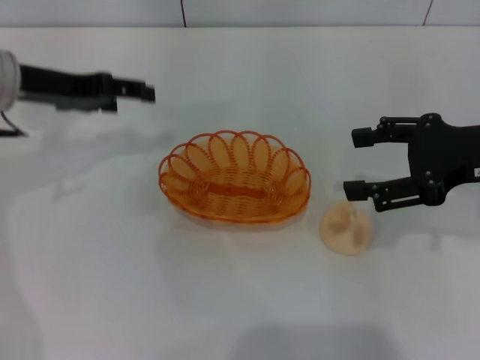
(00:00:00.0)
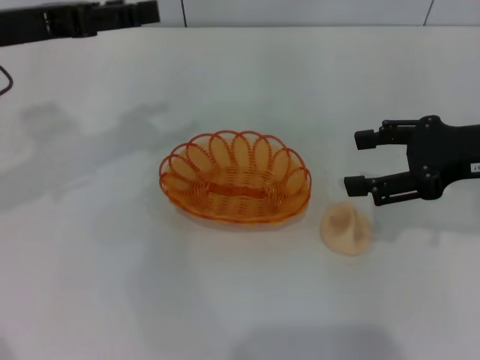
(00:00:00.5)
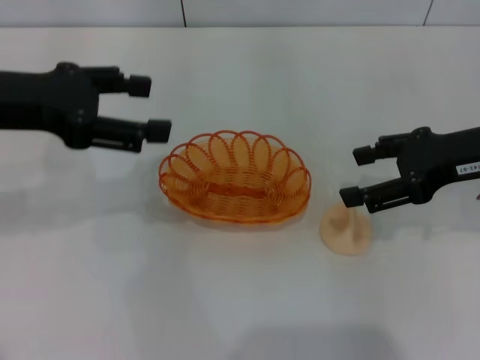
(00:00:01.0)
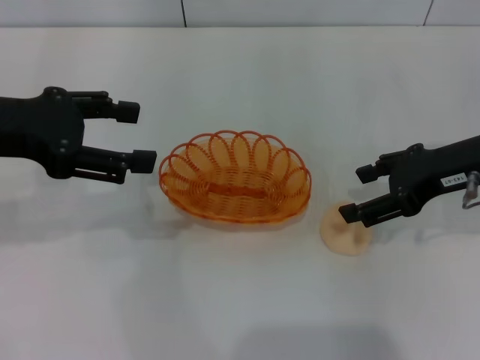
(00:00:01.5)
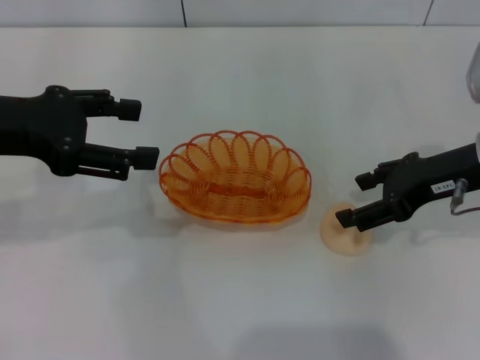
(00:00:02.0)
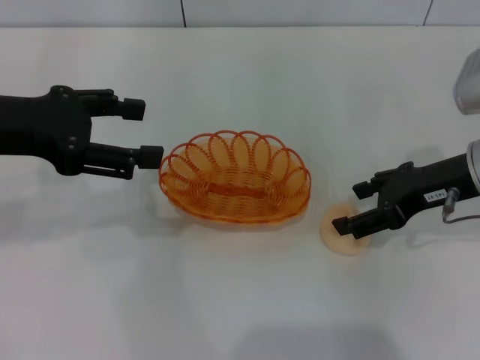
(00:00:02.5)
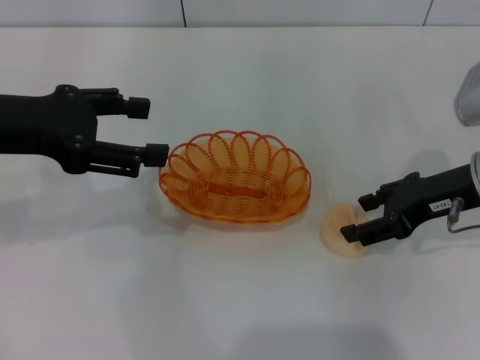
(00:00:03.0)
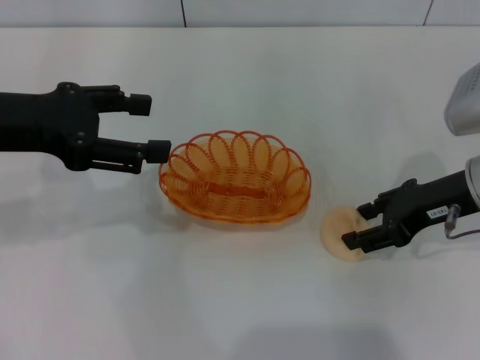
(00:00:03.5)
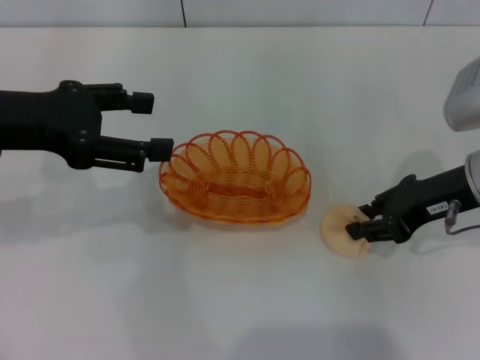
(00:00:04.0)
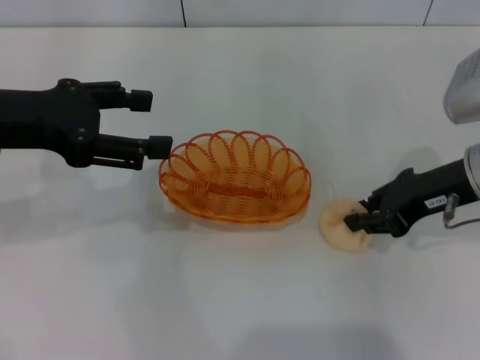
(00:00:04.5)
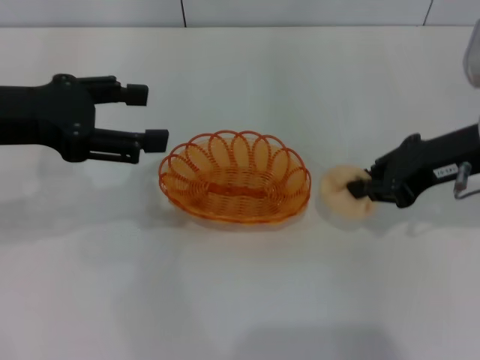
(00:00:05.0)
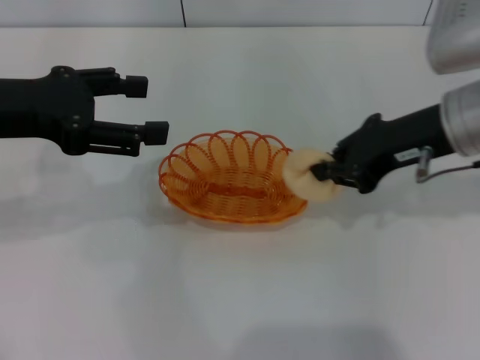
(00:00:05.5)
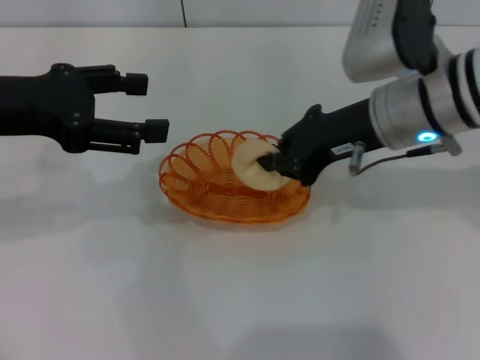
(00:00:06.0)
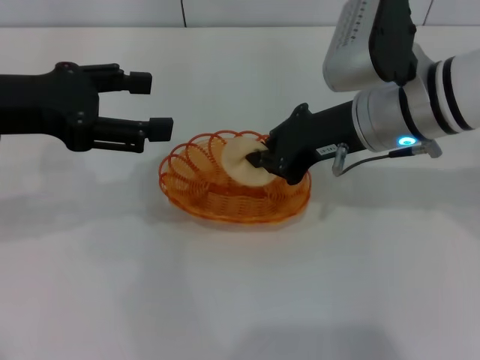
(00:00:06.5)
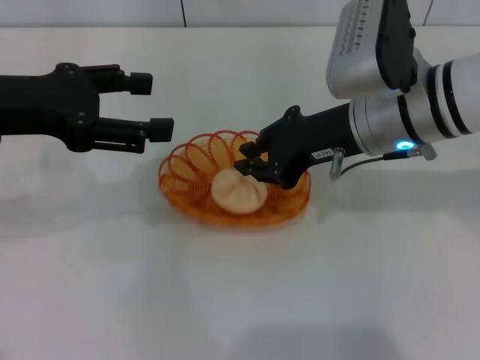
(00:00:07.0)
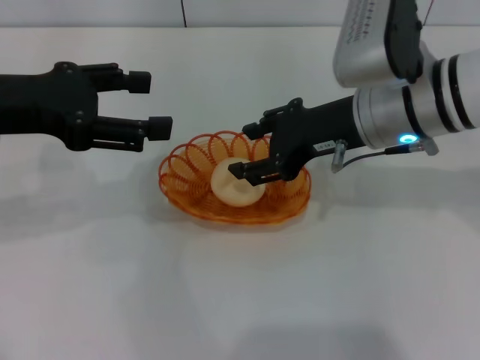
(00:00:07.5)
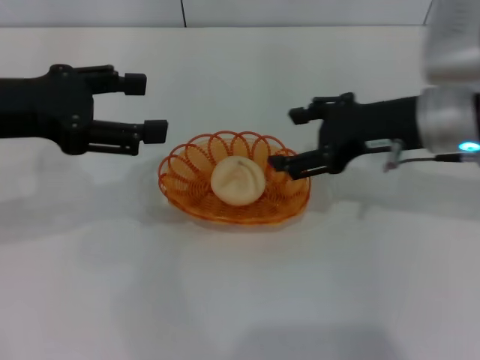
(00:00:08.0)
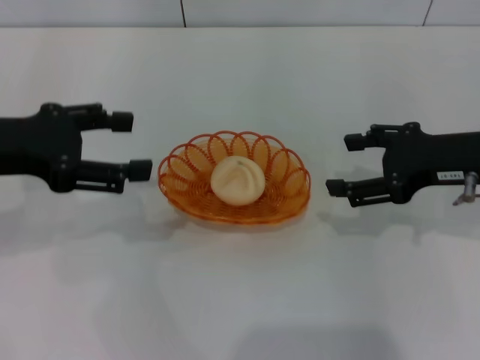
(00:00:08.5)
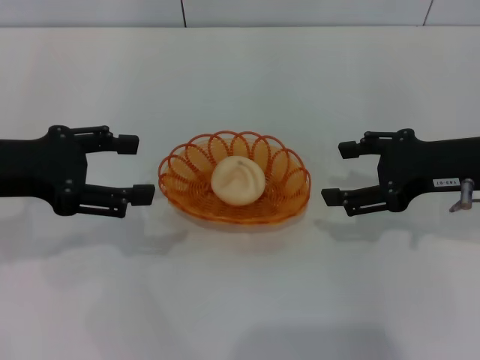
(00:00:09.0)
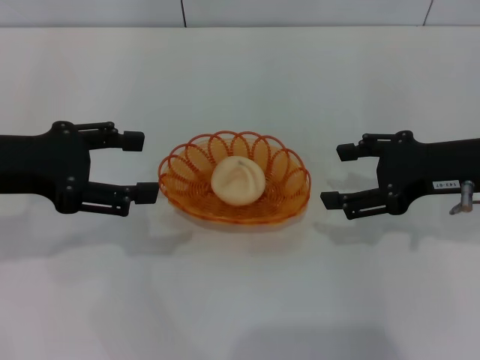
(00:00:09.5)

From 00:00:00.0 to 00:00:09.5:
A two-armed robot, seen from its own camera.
Step, from 00:00:00.0 to 00:00:05.0: Pick up the egg yolk pastry with the right gripper.
Step, from 00:00:05.5 to 00:00:07.5: Place the egg yolk pastry into the basket with the right gripper.
From 00:00:00.0 to 00:00:02.0: The left gripper shifts about 10 cm backward.
From 00:00:02.0 to 00:00:04.0: The right gripper closes its fingers.
From 00:00:04.0 to 00:00:05.5: The right gripper goes some 5 cm upward, and closes.
From 00:00:05.5 to 00:00:07.5: The right gripper moves to the left, some 5 cm, and opens.
From 00:00:07.5 to 00:00:09.5: The right gripper moves to the right, roughly 10 cm, and opens up.
